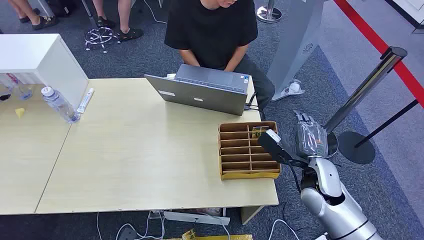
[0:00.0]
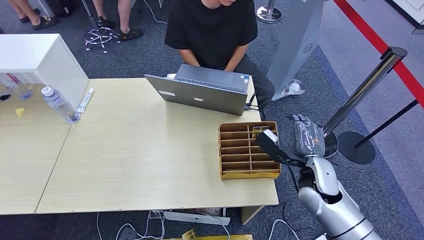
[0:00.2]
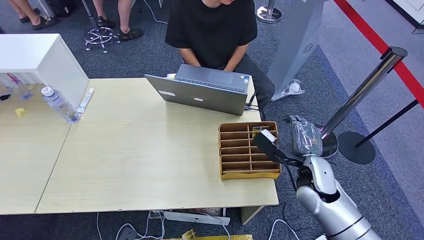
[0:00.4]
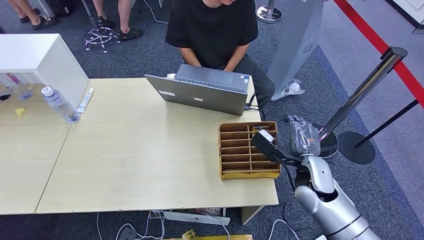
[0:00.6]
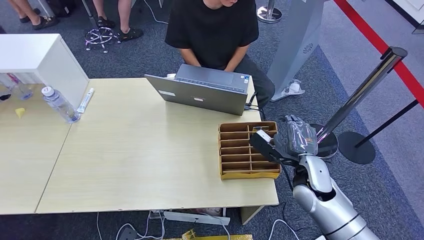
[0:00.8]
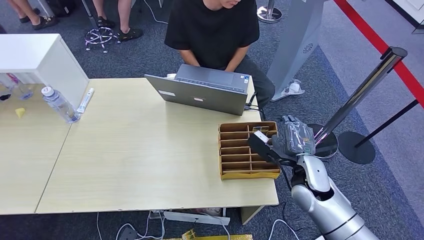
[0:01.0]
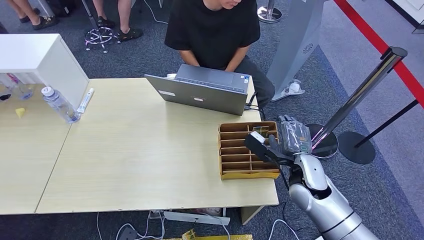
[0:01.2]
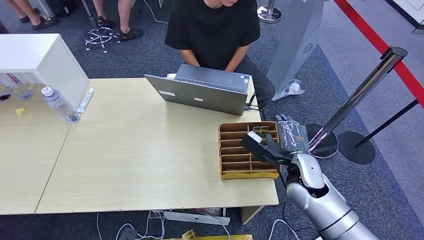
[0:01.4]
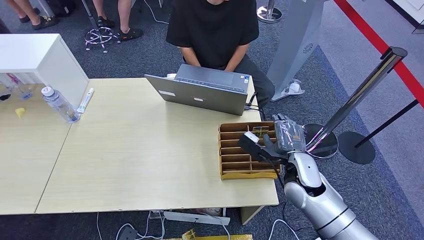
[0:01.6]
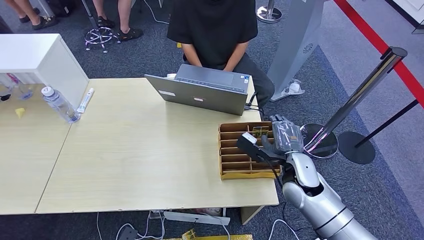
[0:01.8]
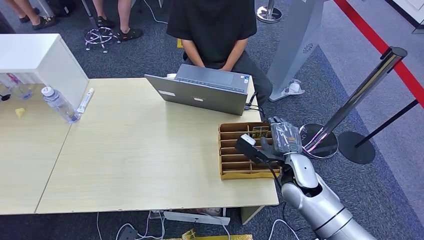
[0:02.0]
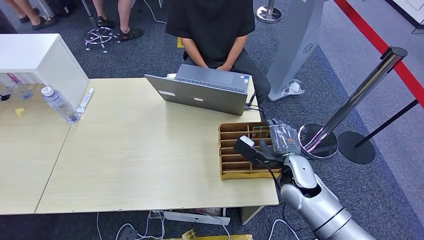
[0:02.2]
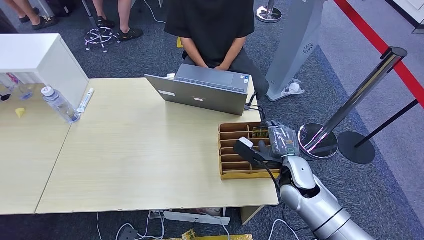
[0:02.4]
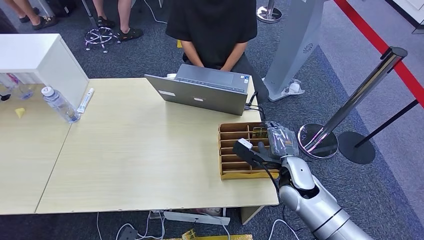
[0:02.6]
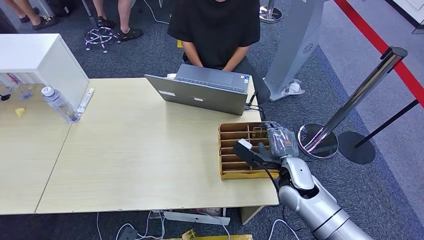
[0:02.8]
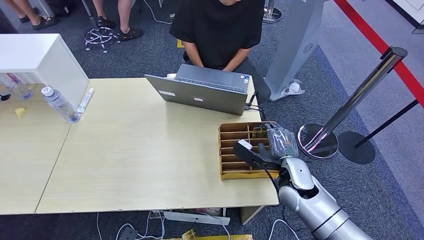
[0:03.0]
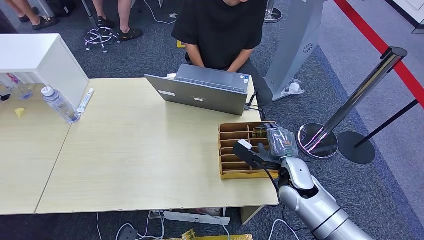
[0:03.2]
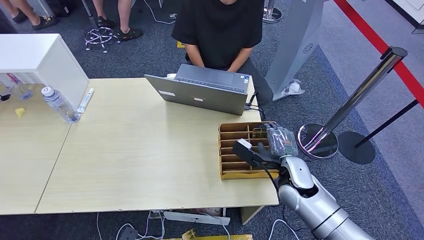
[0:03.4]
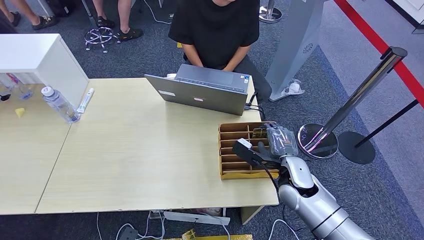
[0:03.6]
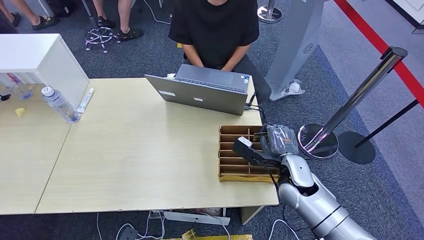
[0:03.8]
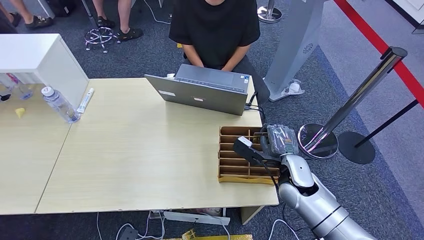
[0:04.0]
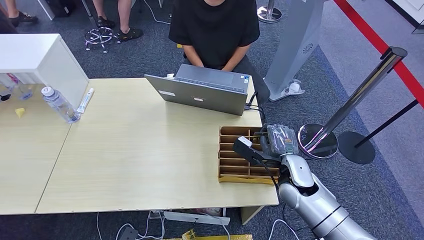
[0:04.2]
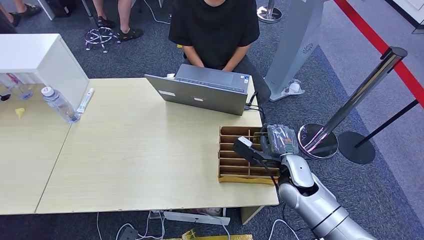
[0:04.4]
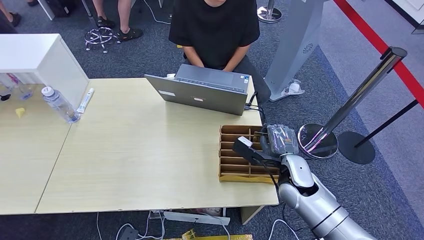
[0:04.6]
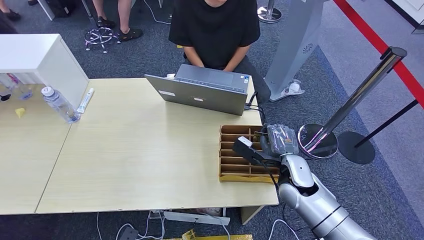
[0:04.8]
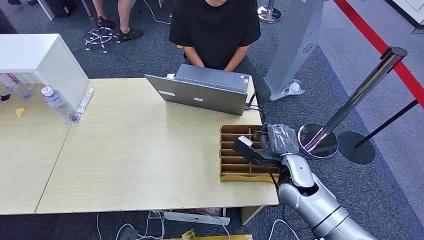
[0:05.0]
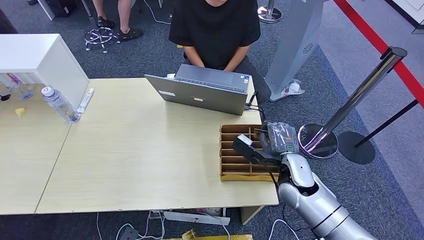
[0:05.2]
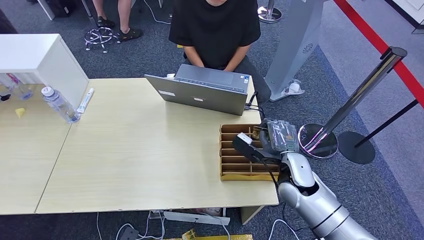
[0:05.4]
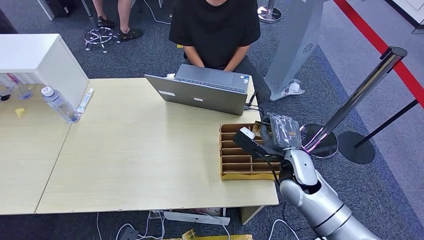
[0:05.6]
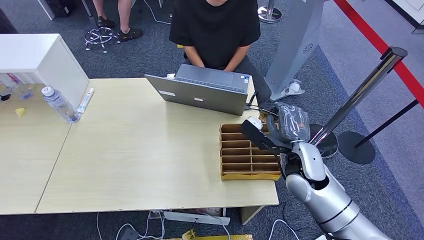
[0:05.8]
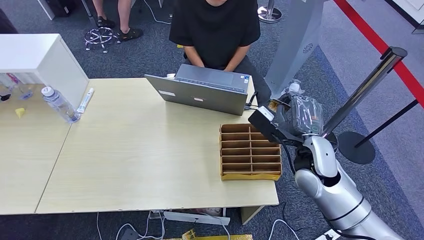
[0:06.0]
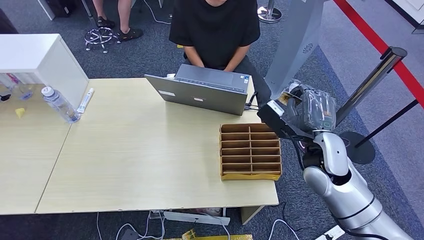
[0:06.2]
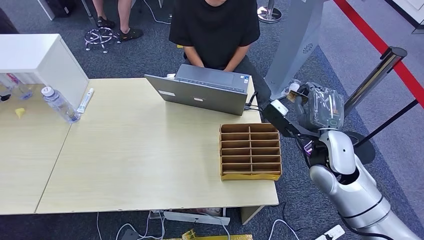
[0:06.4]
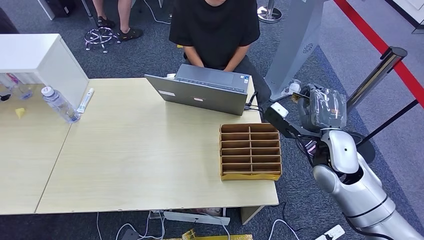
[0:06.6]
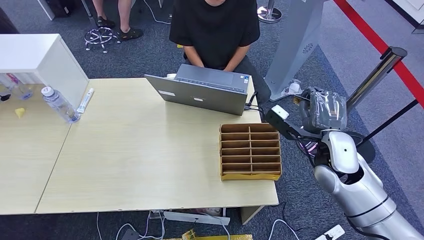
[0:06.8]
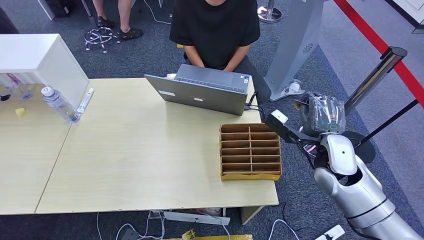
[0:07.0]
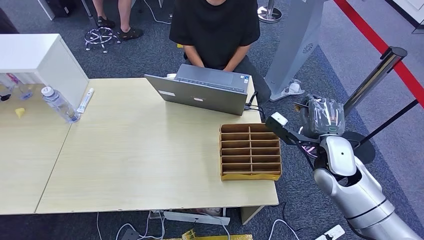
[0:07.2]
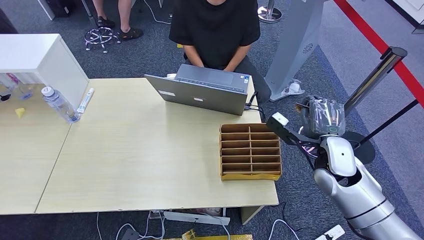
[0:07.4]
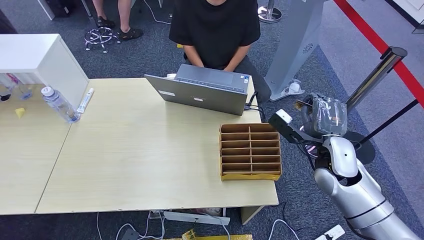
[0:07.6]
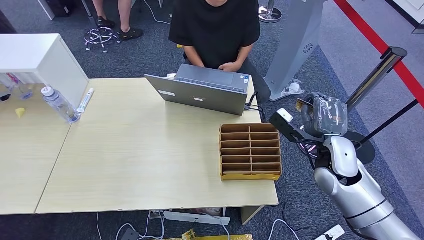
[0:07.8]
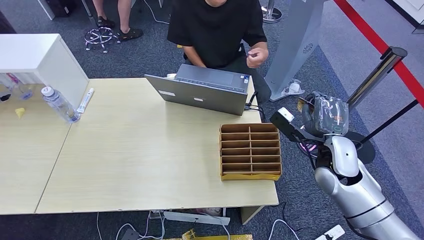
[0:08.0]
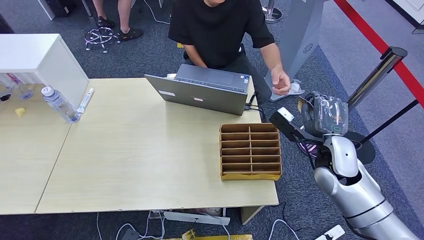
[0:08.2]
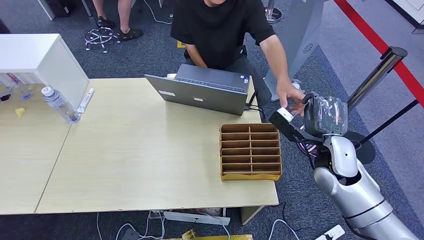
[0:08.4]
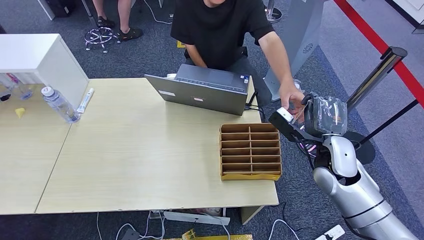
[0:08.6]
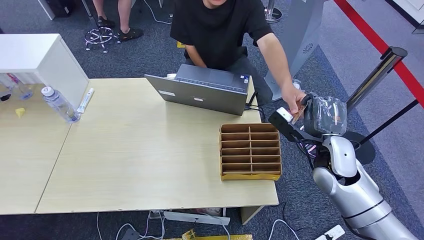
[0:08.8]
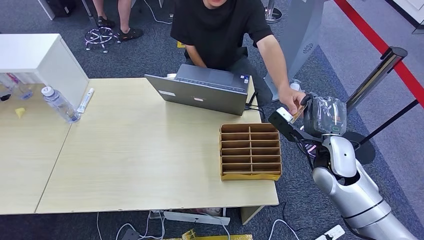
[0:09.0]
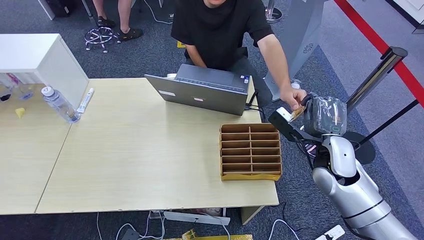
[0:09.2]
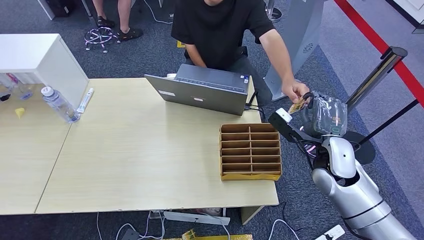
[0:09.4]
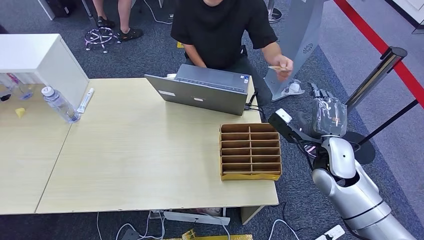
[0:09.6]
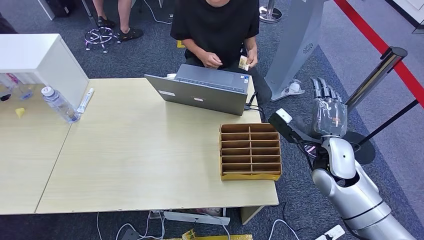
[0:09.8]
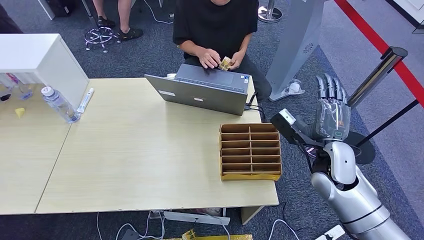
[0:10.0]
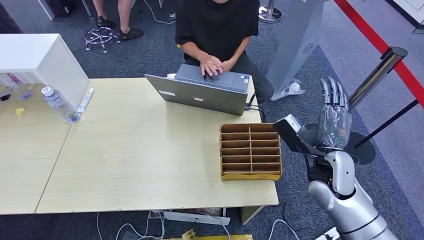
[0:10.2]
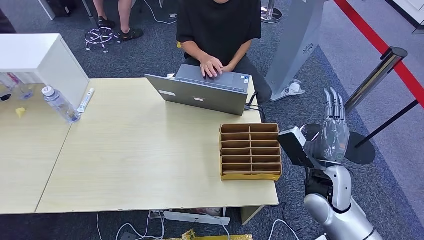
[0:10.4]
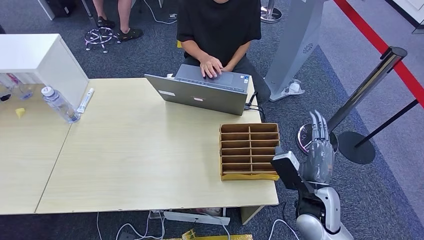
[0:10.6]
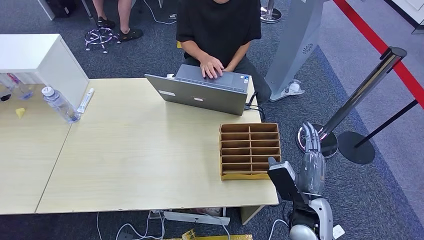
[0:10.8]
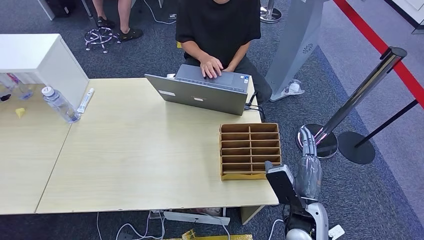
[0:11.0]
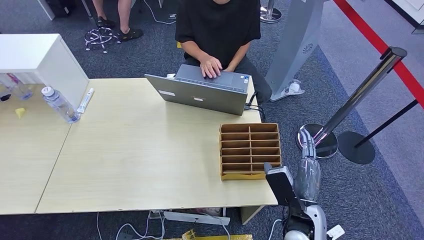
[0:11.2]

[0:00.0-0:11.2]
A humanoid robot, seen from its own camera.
Step, 0:00.0 to 0:05.4: Pick up the key card from the card box.
Step, 0:05.6 to 0:11.2: Hand the key card to the target.
0:01.6 to 0:03.2: There are only small adjustments of the hands.
0:03.2 to 0:04.8: Both hands stay about where they are.
0:04.8 to 0:06.4: The right hand travels upward by some 10 cm.
0:06.4 to 0:08.0: There are only small adjustments of the hands.
0:08.0 to 0:09.6: Both hands stay about where they are.
0:09.6 to 0:11.2: The right hand is displaced backward, downward and to the left by about 15 cm.
